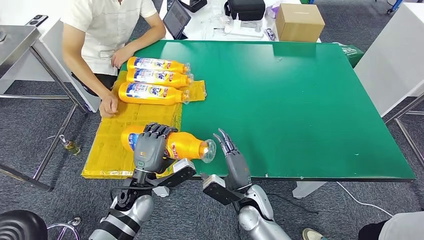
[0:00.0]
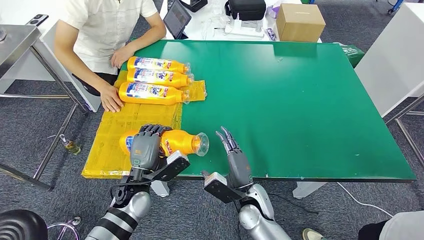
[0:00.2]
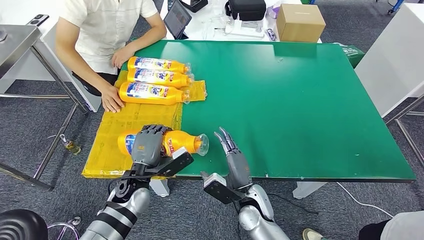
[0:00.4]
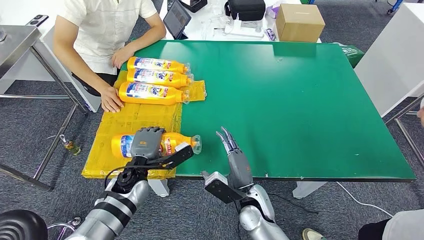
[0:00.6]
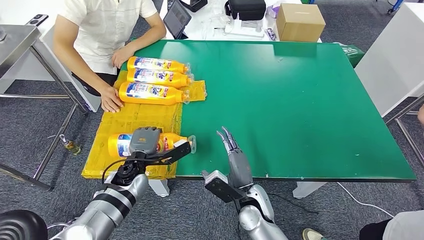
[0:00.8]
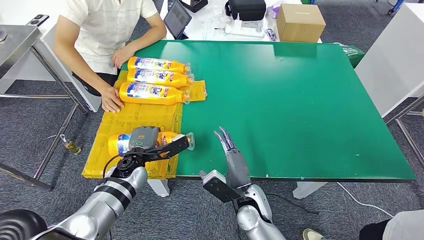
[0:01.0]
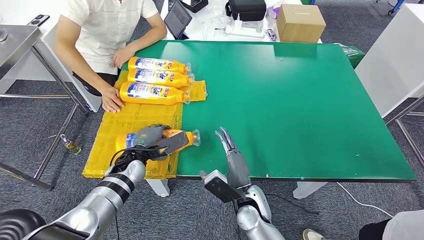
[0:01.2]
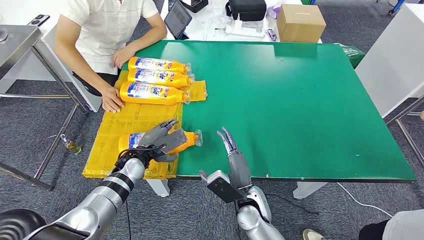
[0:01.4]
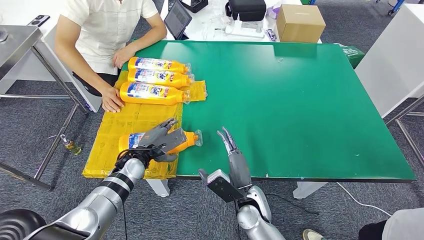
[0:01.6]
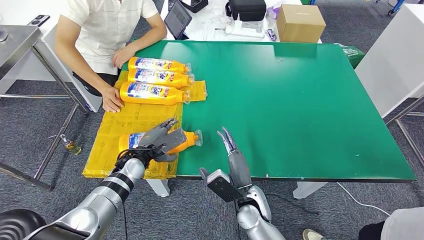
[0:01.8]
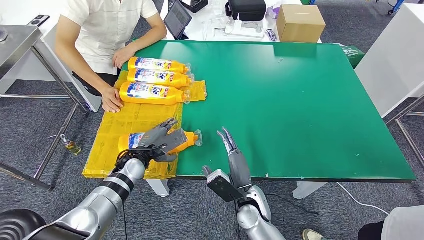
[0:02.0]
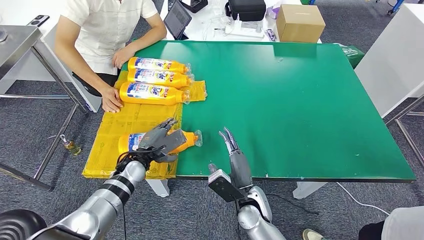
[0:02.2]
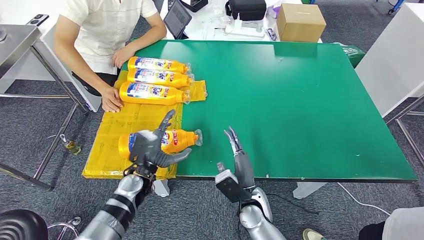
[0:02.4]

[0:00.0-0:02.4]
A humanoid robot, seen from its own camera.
Step, 0:00.0 to 0:02.4: Flip the bottle to face forward.
0:00.0 to 0:01.2: The left hand moves forward, approximately 10 cm.
0:01.2 to 0:02.4: The left hand goes some 5 cm backward.

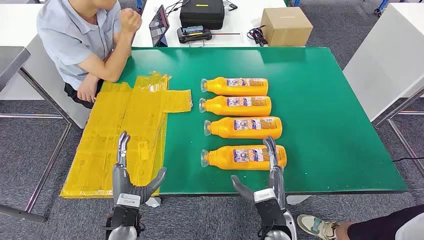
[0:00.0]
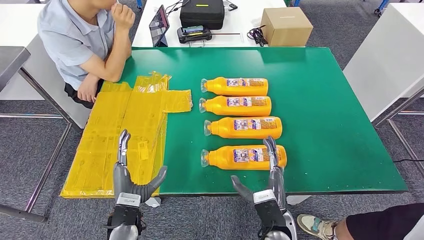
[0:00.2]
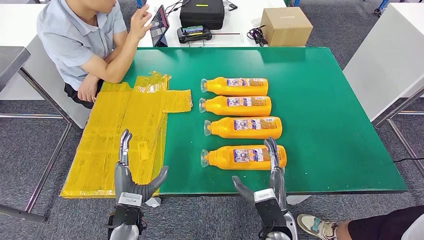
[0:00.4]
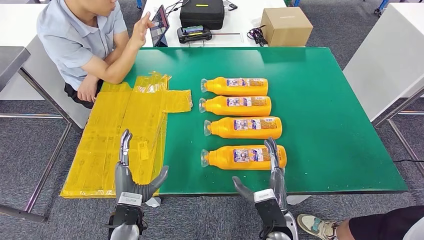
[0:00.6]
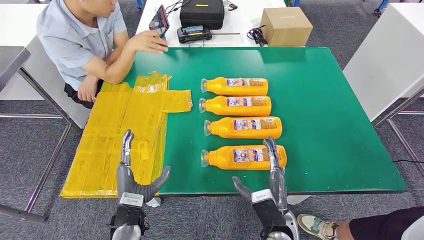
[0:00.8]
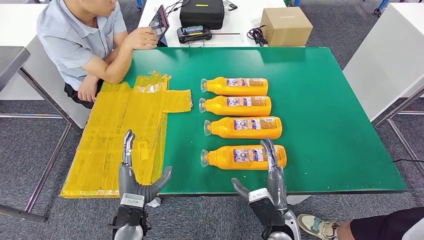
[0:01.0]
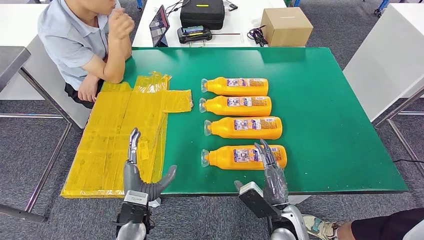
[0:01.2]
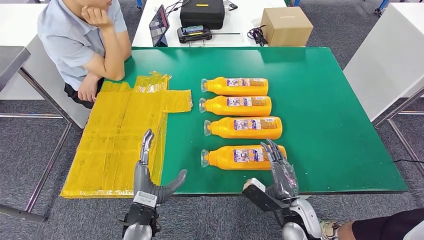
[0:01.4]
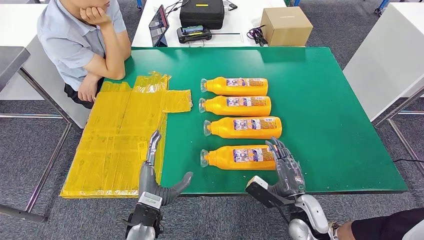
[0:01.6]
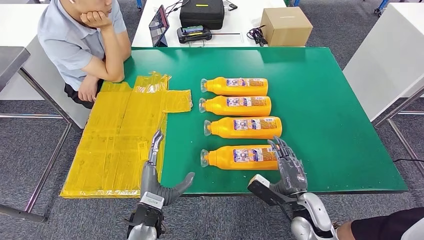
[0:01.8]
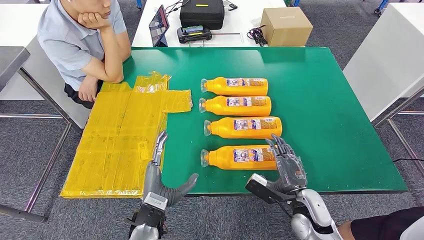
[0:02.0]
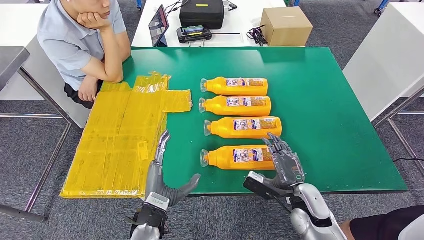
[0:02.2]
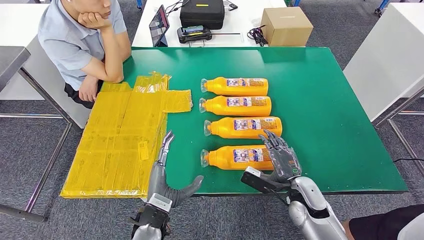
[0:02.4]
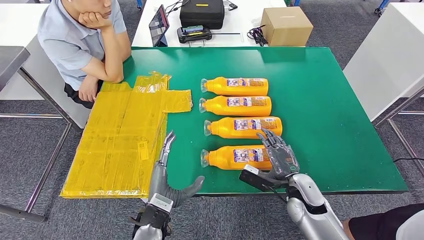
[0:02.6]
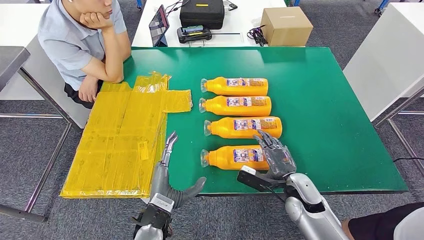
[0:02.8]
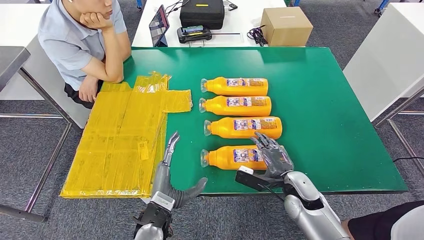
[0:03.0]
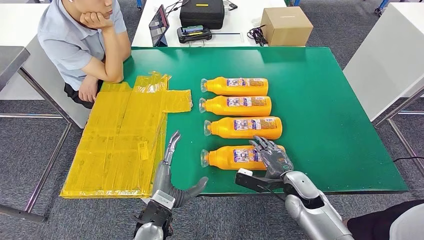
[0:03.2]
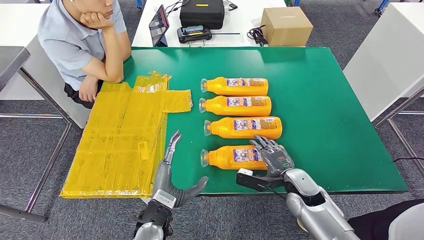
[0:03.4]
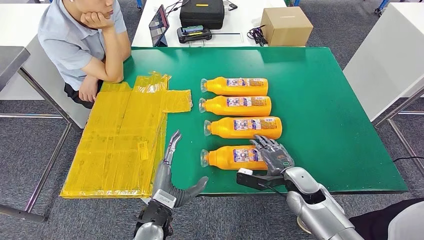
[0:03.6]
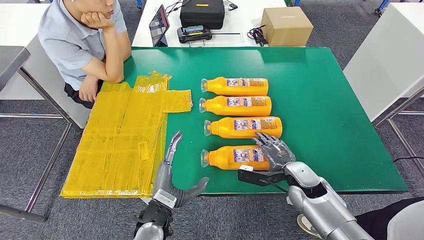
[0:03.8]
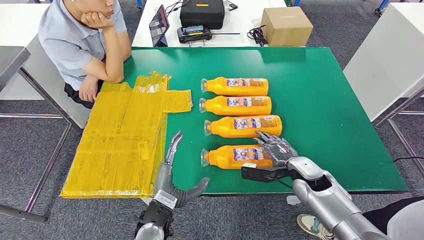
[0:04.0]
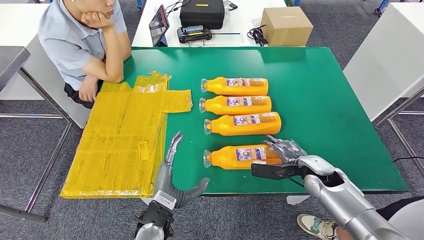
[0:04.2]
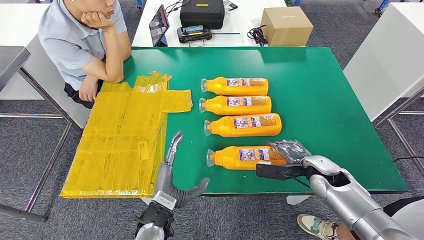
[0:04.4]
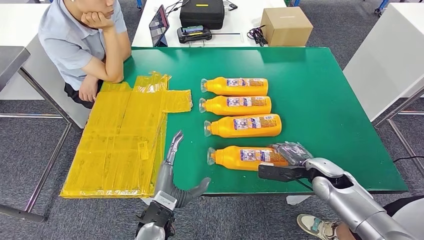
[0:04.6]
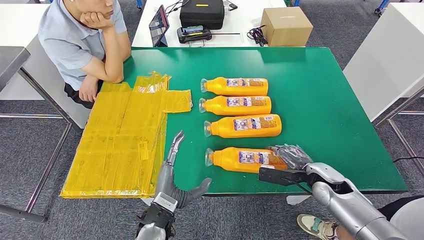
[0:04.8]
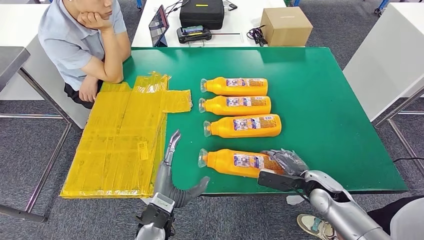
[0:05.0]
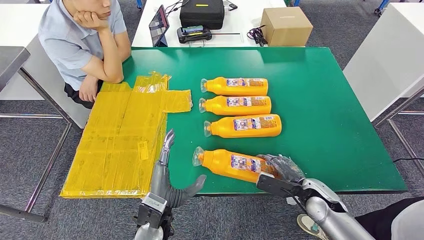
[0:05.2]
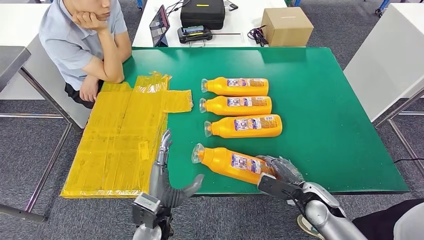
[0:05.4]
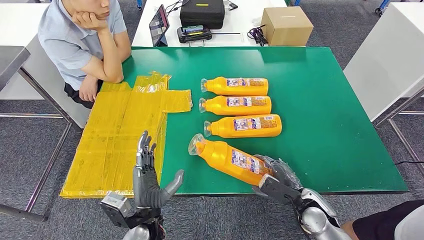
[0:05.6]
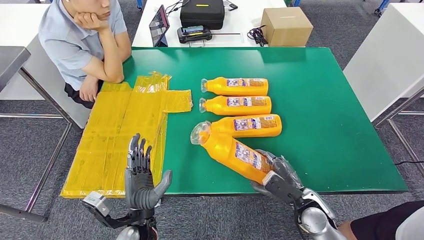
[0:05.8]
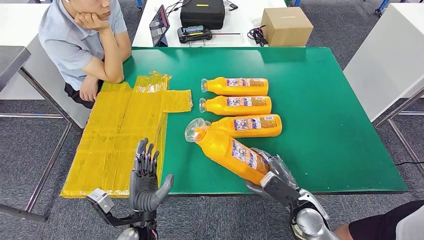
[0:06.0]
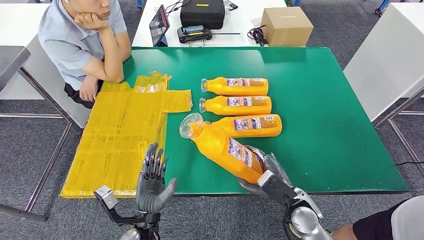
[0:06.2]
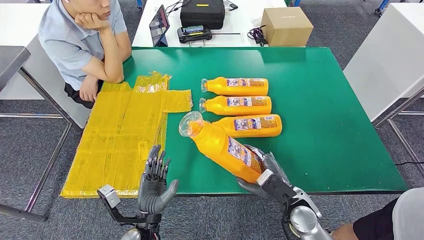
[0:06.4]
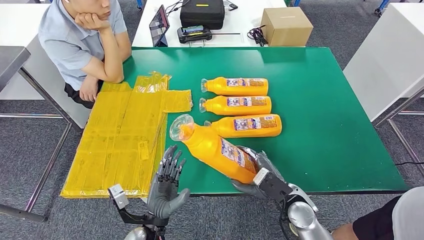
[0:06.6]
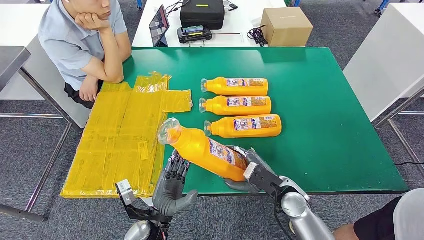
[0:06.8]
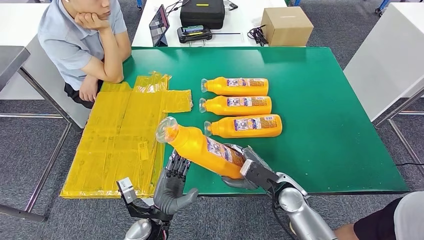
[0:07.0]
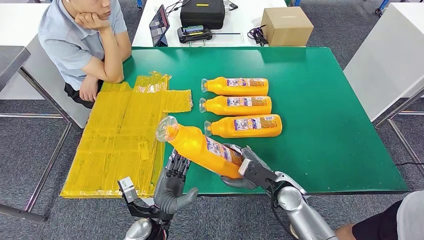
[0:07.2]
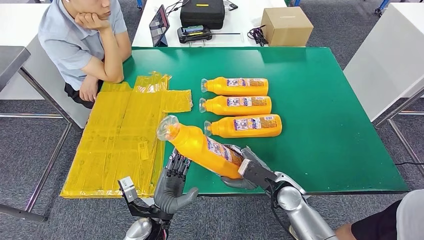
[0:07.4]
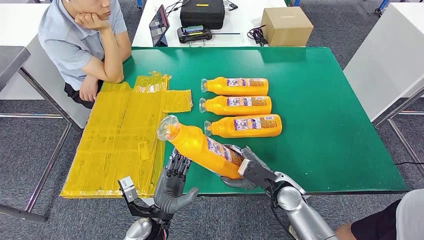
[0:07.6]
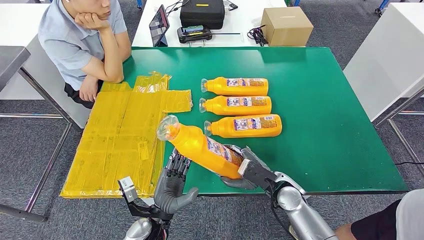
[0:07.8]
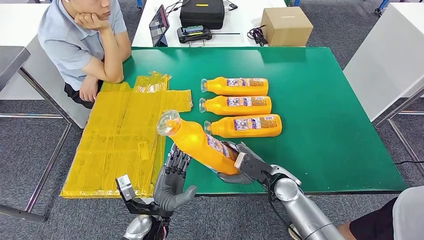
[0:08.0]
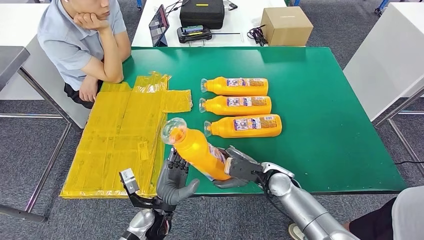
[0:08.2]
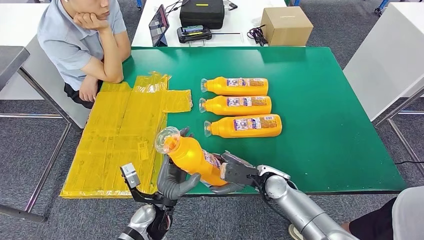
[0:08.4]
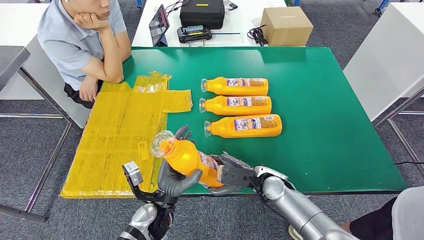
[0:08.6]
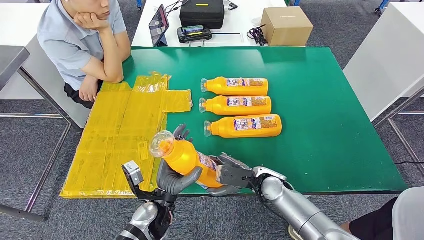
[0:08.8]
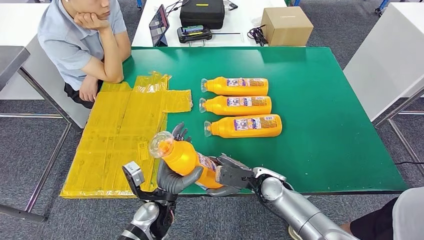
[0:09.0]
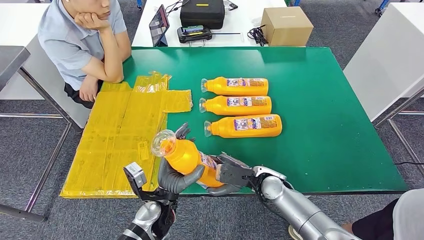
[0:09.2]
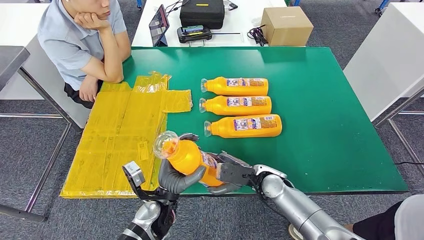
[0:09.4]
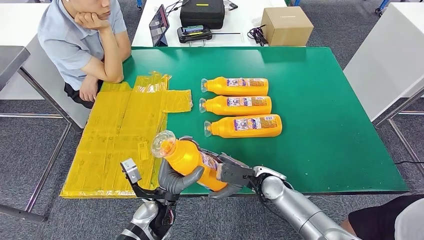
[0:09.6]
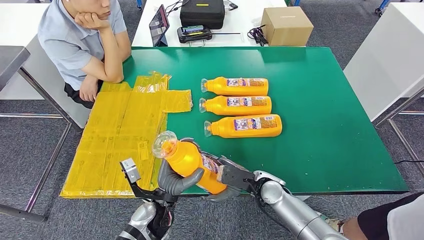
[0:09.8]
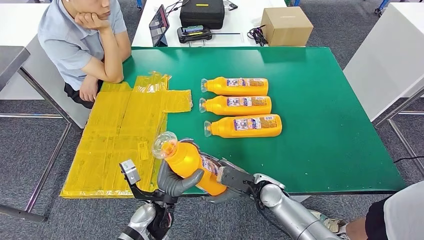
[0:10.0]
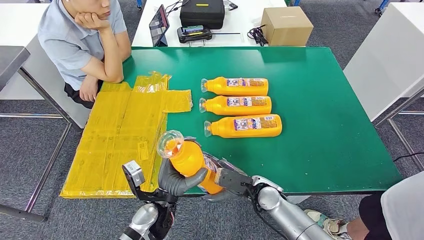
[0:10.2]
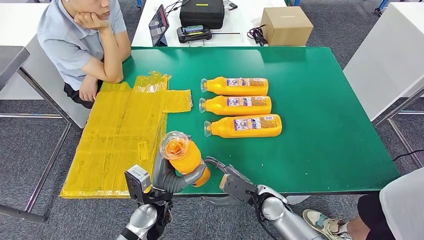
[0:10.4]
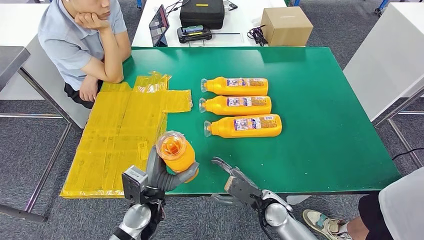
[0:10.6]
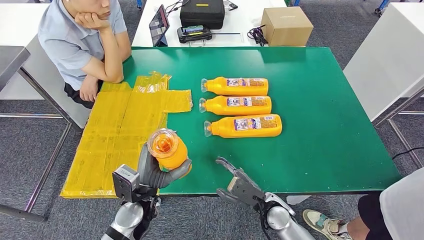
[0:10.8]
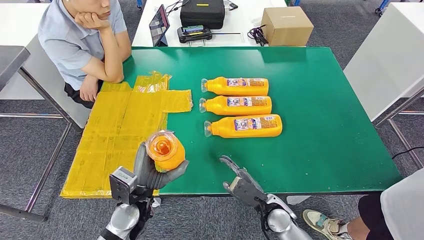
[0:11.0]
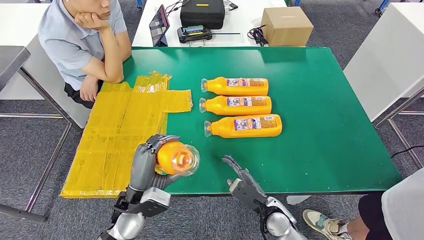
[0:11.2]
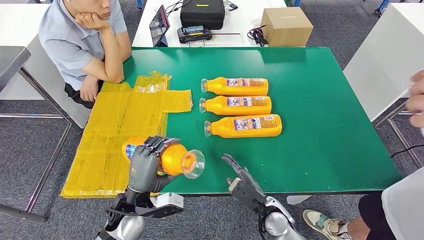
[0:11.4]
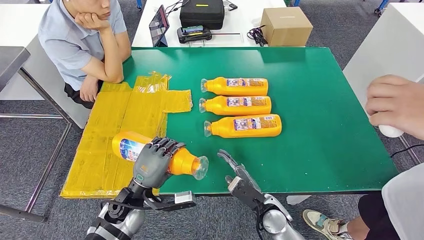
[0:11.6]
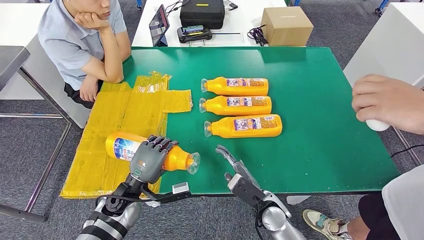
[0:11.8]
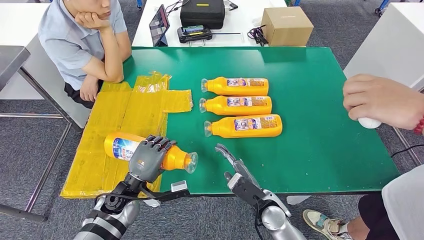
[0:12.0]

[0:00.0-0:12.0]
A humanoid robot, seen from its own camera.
Step, 0:00.0 to 0:07.2: Take the bottle from the table.
0:01.6 to 0:03.0: The right hand is displaced forward by roughly 5 cm.
0:03.0 to 0:04.4: The right hand shifts about 5 cm to the right.
0:04.4 to 0:06.0: The right hand heads backward and to the left, covering about 10 cm.
0:06.0 to 0:07.6: The right hand changes place by about 5 cm.
0:09.0 to 0:10.4: The right hand changes place by about 5 cm.
0:10.4 to 0:12.0: The left hand is displaced to the left by some 10 cm.

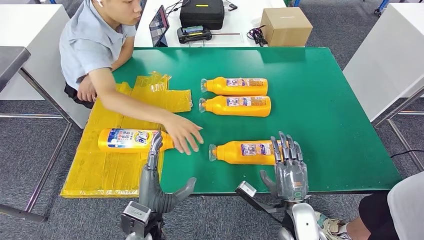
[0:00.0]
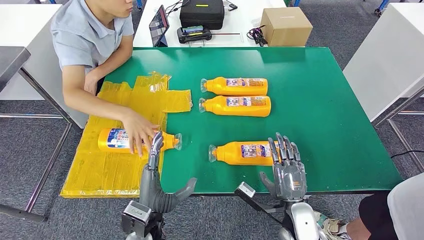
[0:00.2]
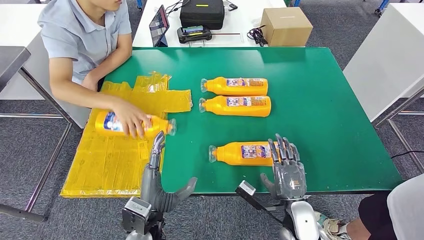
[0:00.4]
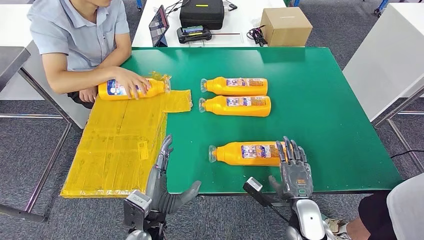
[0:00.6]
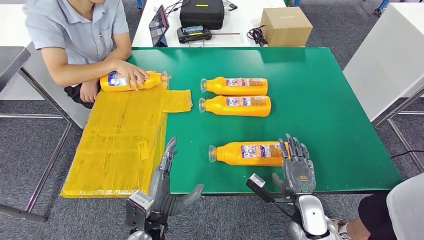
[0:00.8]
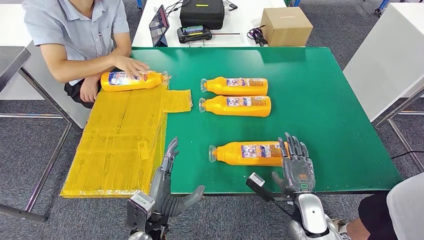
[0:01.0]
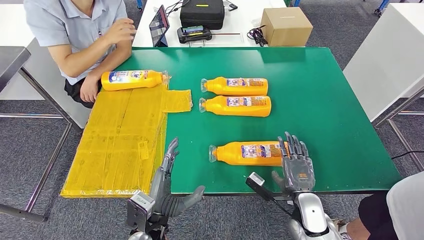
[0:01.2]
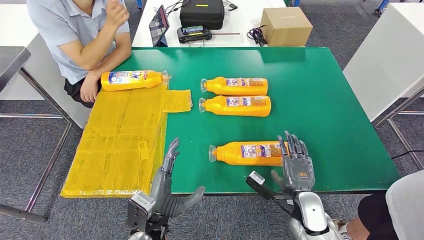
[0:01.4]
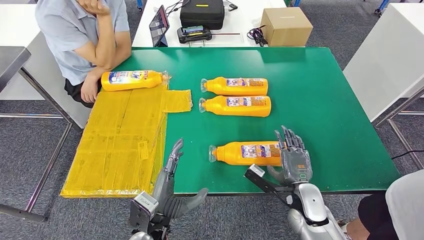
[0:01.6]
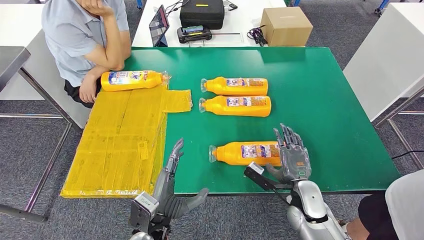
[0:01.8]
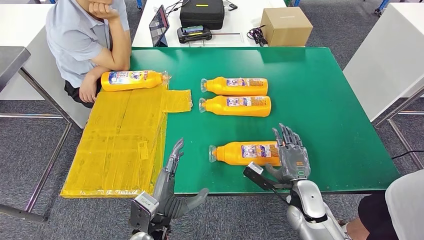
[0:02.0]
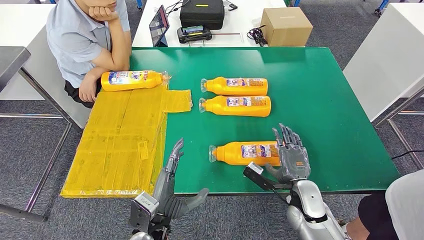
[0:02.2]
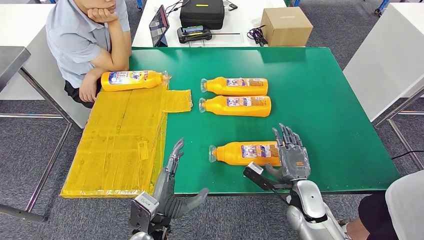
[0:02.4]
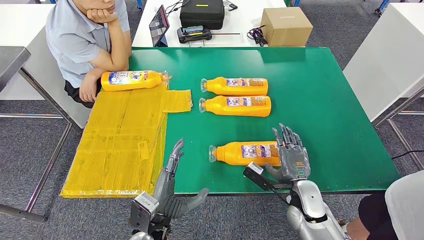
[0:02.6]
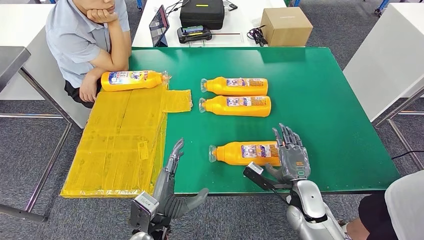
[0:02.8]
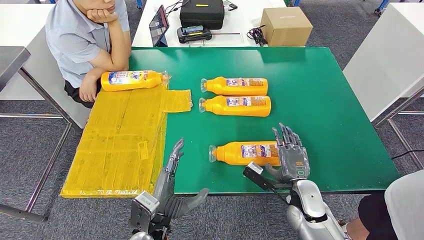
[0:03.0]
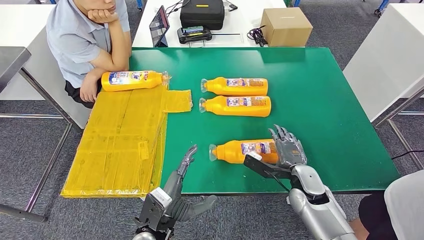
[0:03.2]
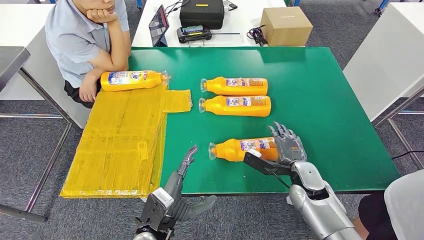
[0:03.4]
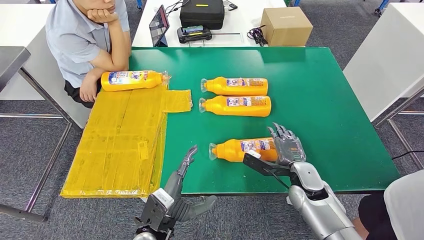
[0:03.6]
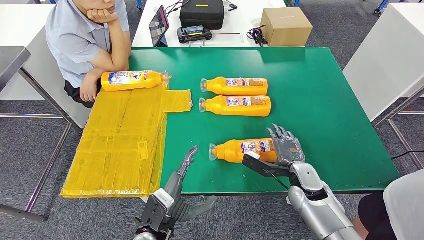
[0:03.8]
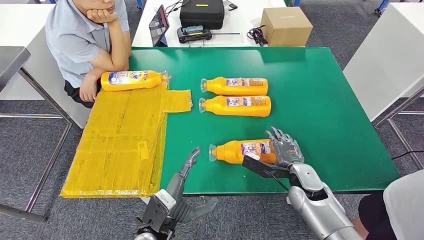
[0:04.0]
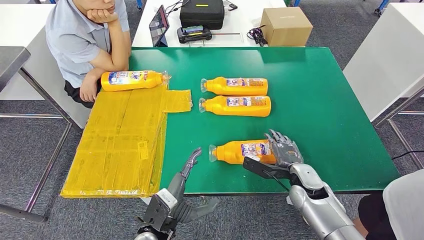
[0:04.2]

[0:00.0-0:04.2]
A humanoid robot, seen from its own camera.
0:00.0 to 0:02.8: The hands stay close to where they were, moving slightly.
